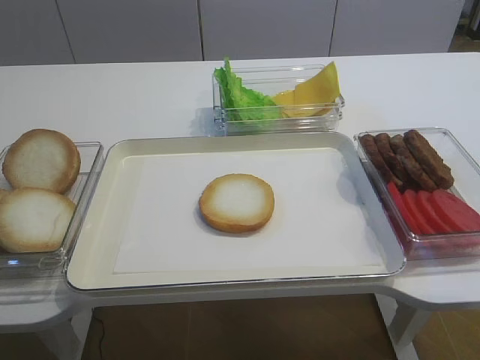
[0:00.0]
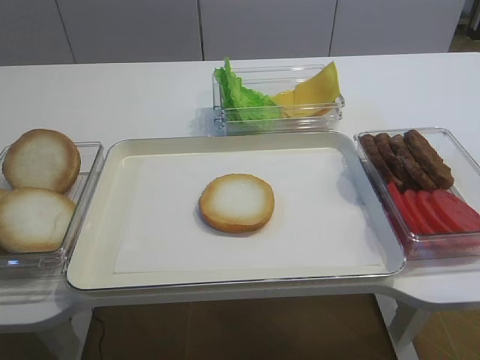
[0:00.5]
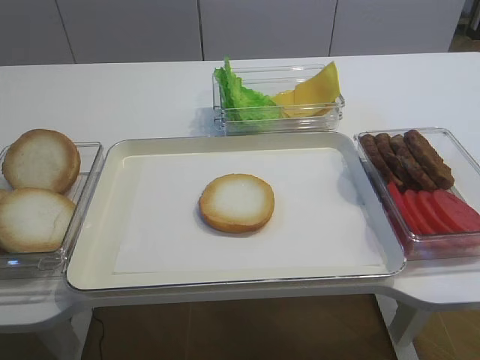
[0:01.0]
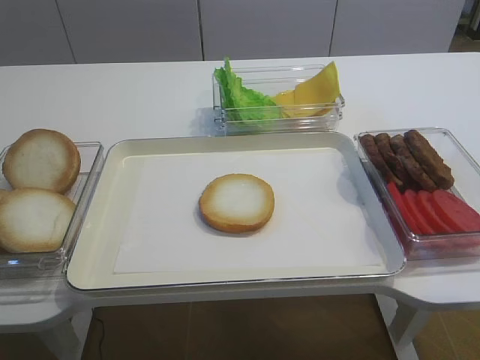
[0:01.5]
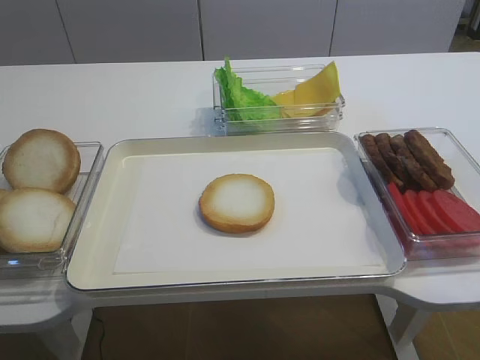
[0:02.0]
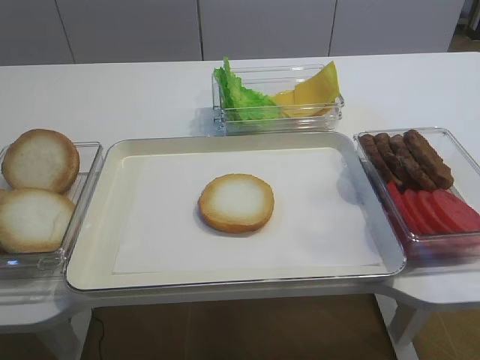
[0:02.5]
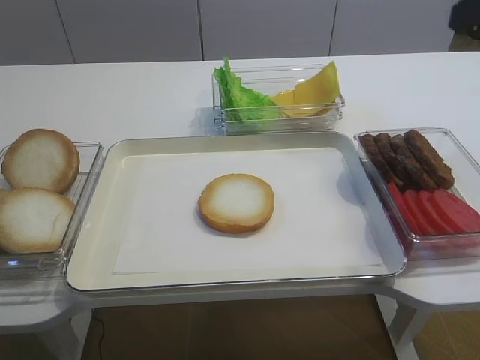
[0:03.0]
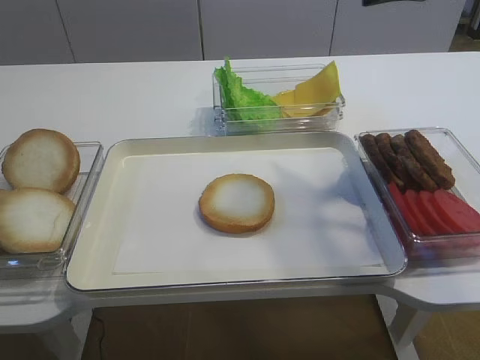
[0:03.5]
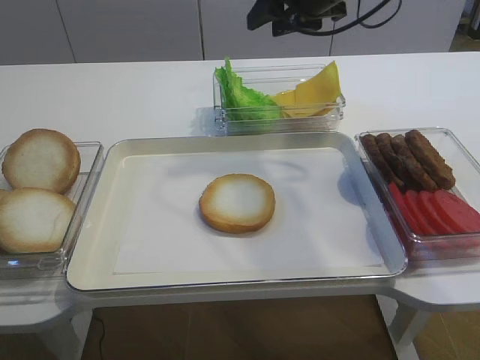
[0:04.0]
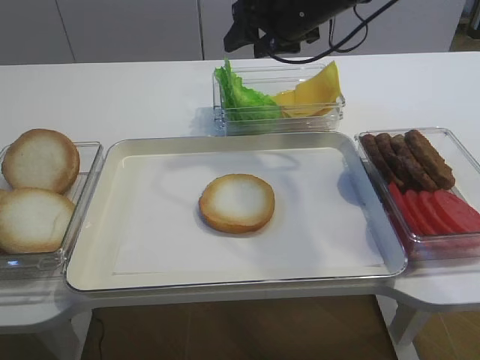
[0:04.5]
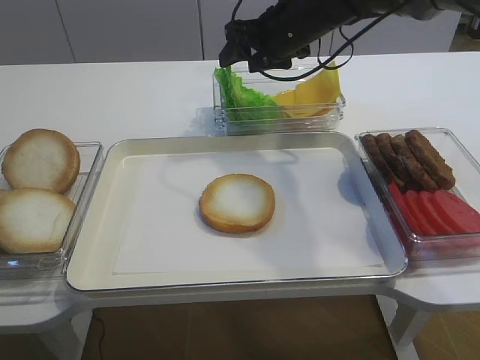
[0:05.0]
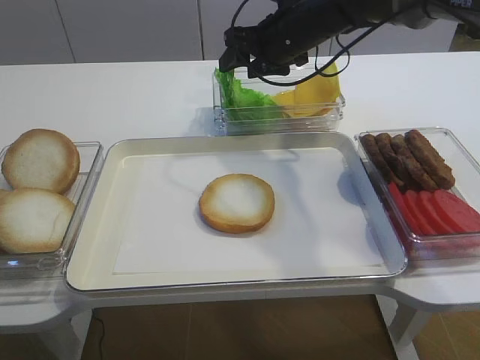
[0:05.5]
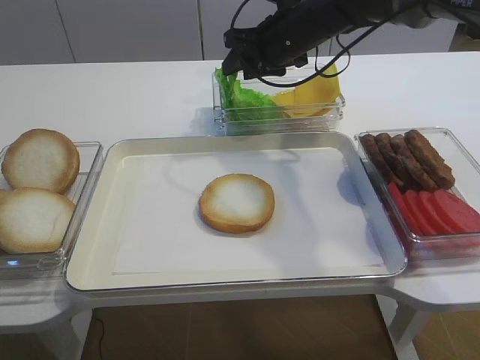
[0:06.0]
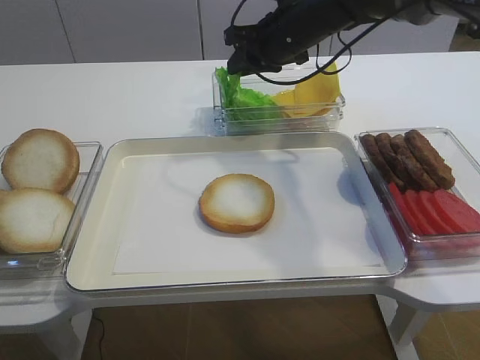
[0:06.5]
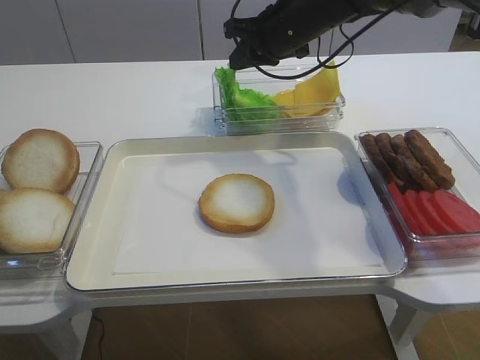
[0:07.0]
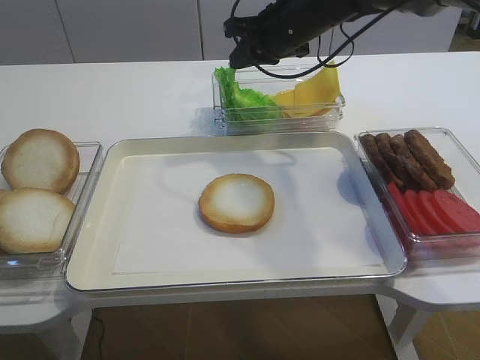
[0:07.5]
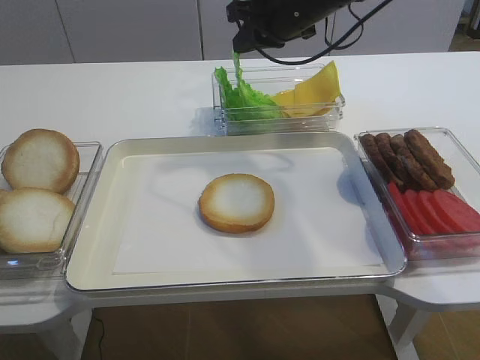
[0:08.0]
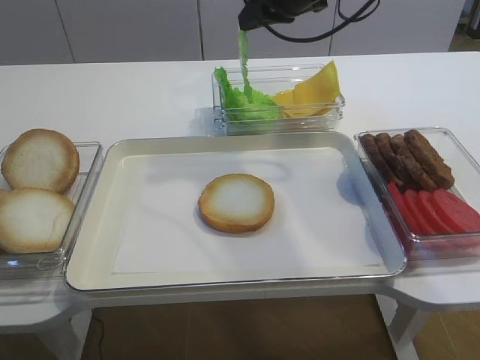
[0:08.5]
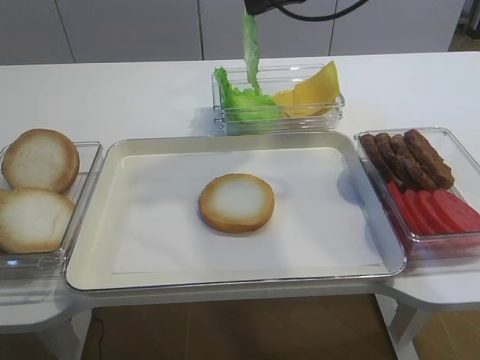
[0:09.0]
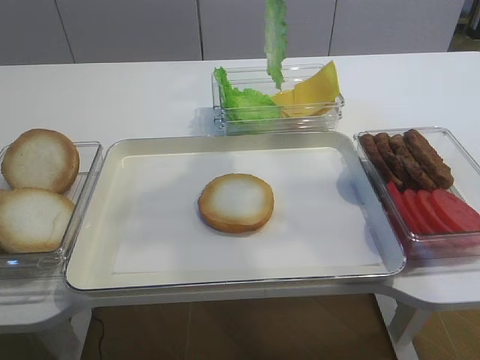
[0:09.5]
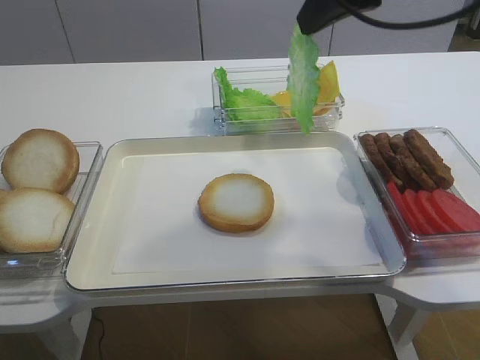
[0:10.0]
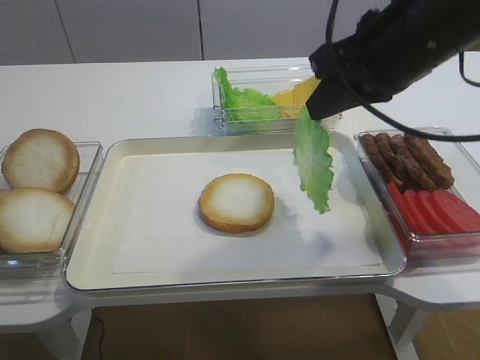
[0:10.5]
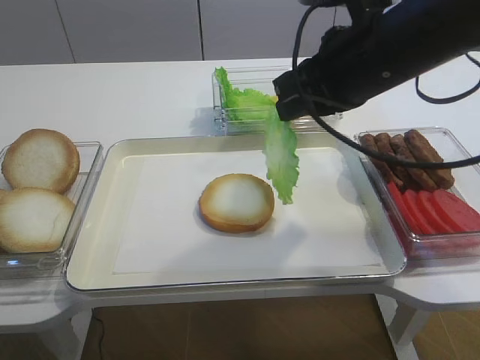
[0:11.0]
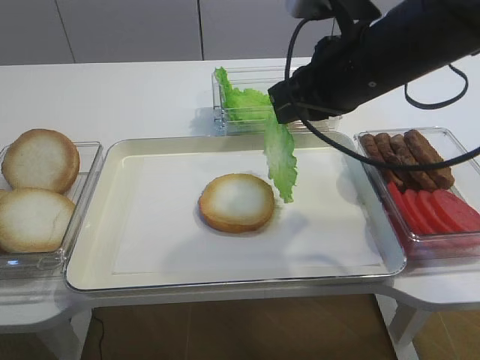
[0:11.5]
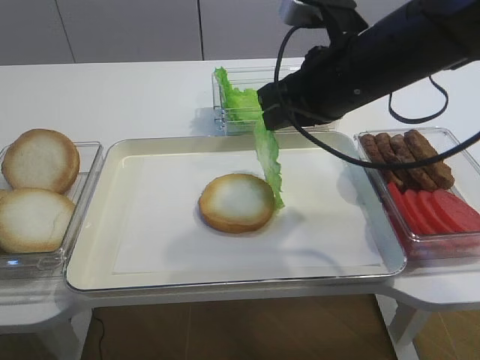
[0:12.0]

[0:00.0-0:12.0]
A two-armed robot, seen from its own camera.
Step, 0:00.0 to 0:08.0: Pick up the lettuce leaf with the right gripper.
0:02.0 to 0:04.0: The right gripper heads forward, covering some 50 cm.
0:04.0 to 0:06.0: The right gripper heads downward, covering roughly 10 cm.
0:06.0 to 0:08.0: The right gripper closes up.
0:08.0 to 0:10.0: The right gripper is displaced backward and upward by roughly 15 cm.
0:10.0 to 0:12.0: The right gripper shifts roughly 10 cm downward.

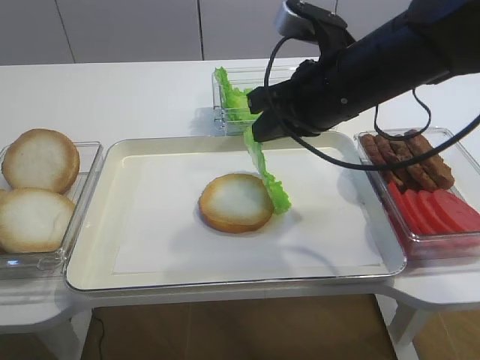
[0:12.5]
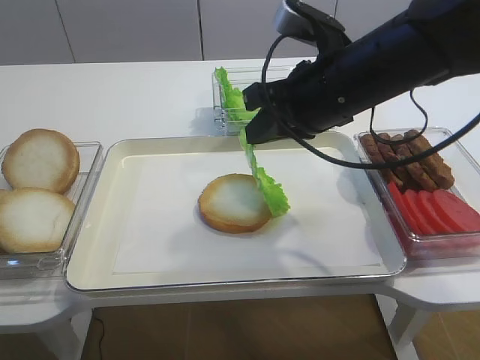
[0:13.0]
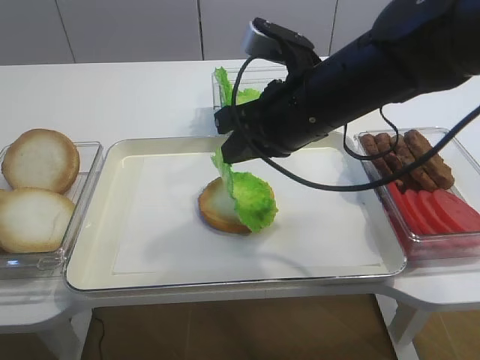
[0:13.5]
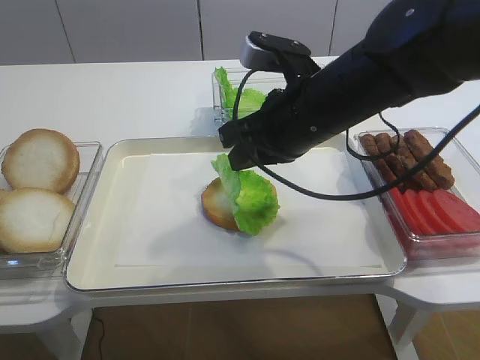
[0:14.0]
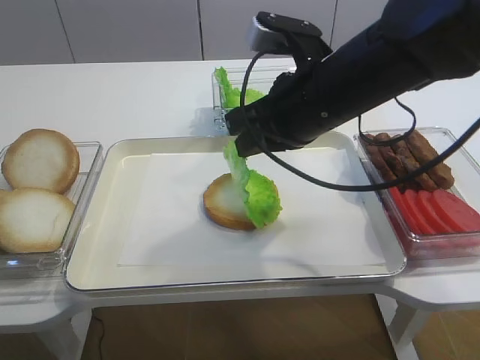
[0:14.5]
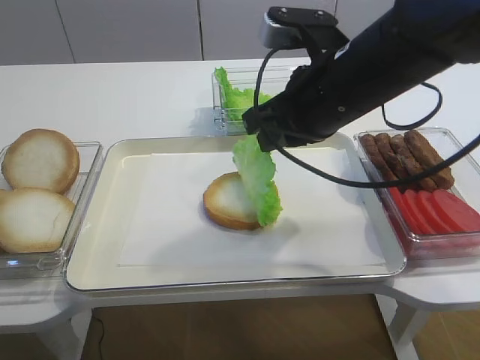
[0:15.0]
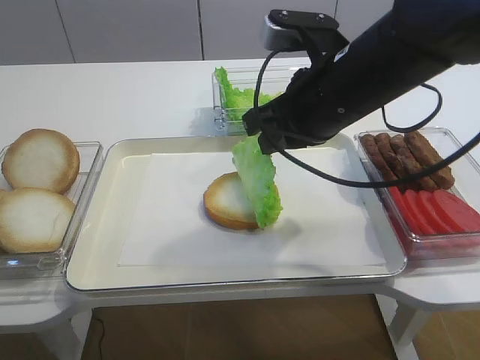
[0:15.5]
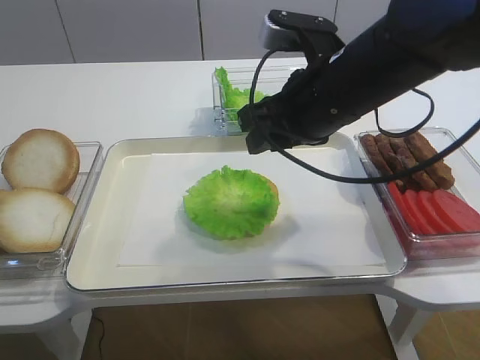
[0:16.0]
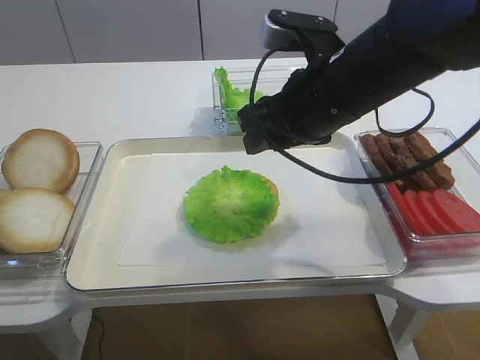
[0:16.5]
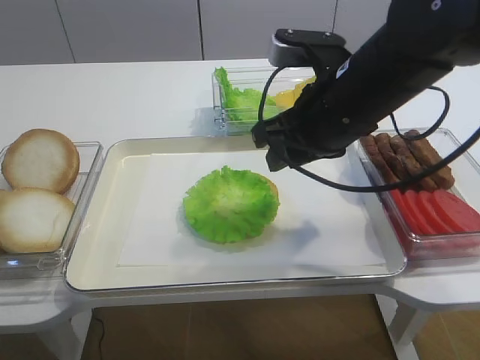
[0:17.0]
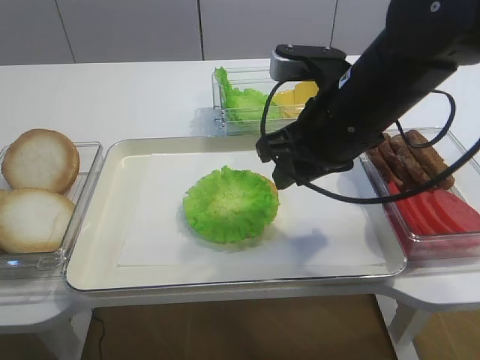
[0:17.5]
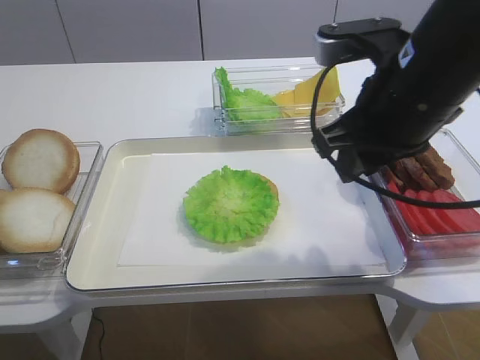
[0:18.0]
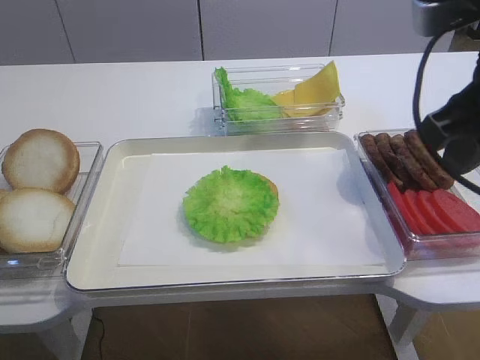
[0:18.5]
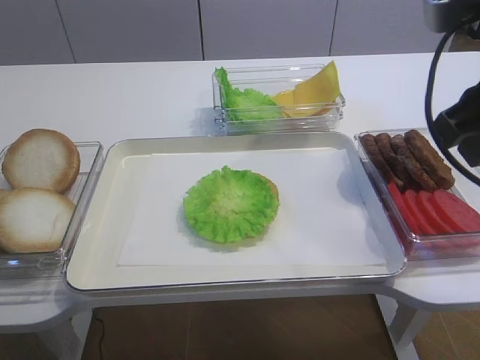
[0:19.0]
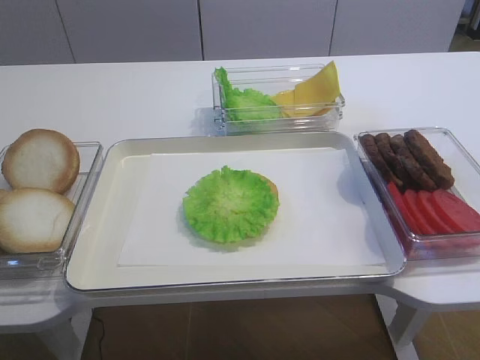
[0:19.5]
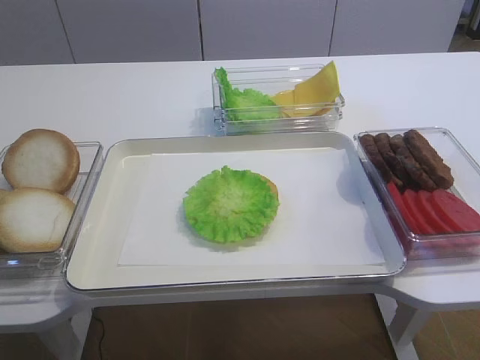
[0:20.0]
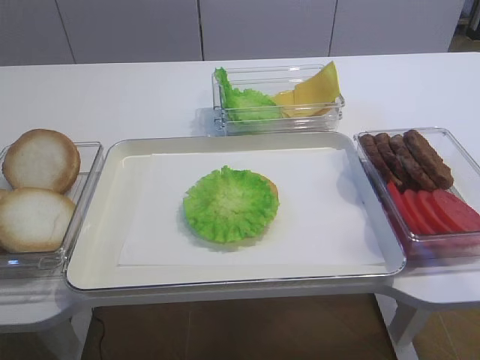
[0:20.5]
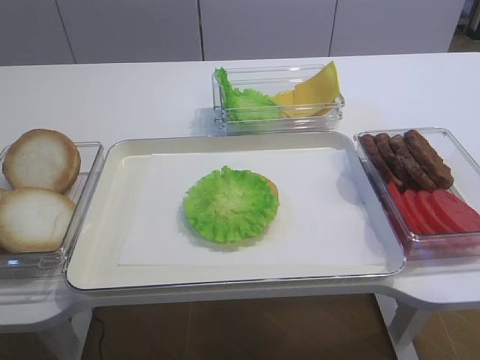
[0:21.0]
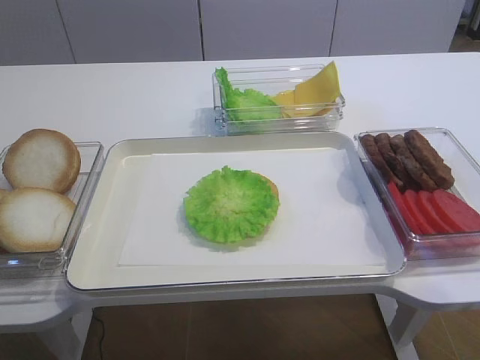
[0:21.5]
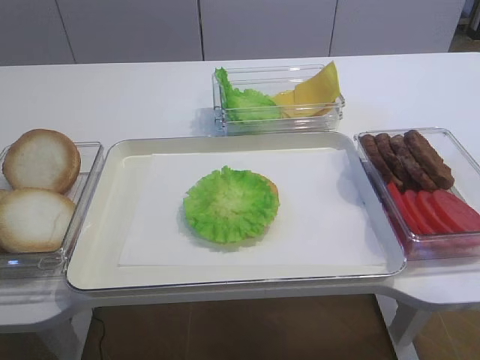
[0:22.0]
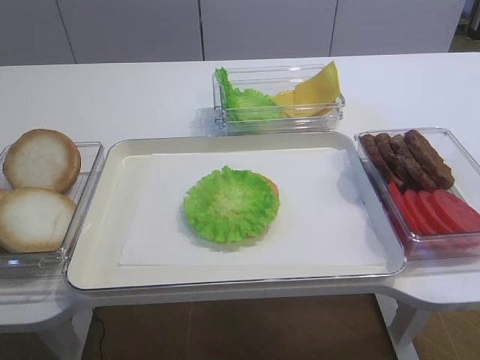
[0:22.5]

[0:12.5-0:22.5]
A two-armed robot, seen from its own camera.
Step, 0:12.5 to 0:16.0: Place the lettuce leaf on the bread slice with the right gripper.
0:12.5 to 0:14.5: The grippers move only a little.
0:14.5 to 0:16.5: The right gripper opens its fingers.
0:16.5 to 0:18.5: The right gripper heads to the right, backward and upward, covering roughly 15 cm.
0:18.5 to 0:20.5: The right gripper goes roughly 20 cm backward and to the right.
0:20.5 to 0:22.5: The right gripper goes some 10 cm downward.

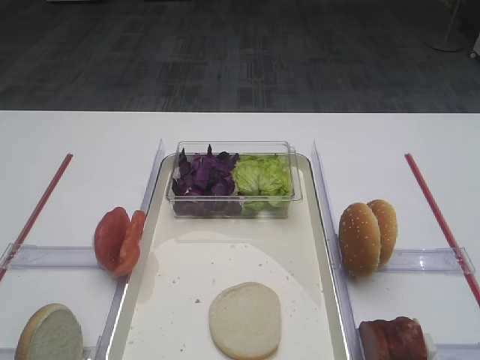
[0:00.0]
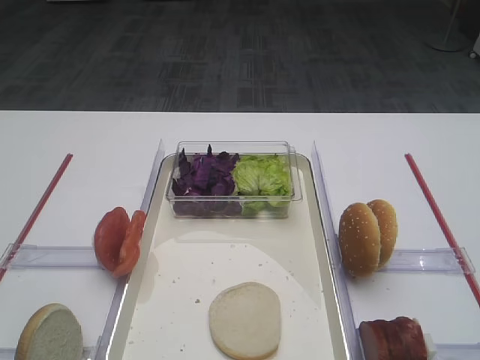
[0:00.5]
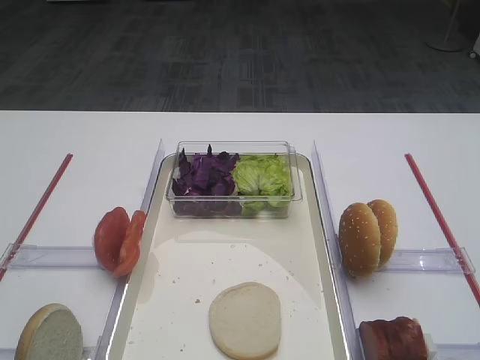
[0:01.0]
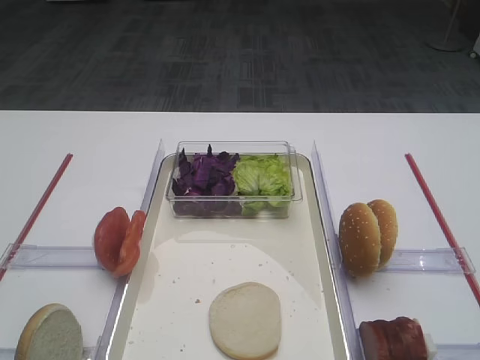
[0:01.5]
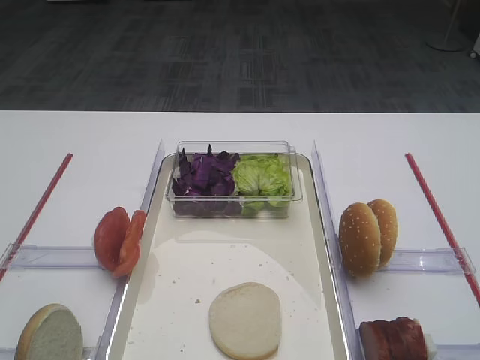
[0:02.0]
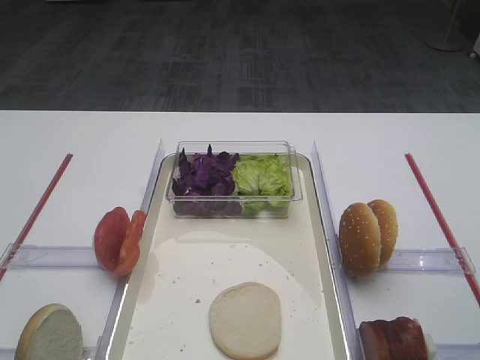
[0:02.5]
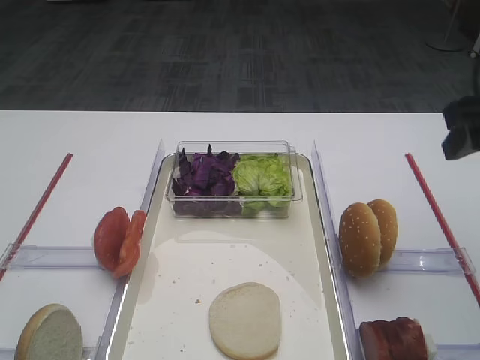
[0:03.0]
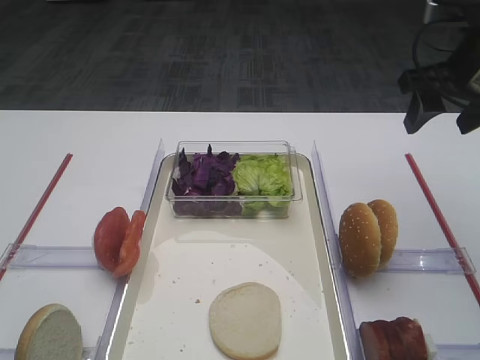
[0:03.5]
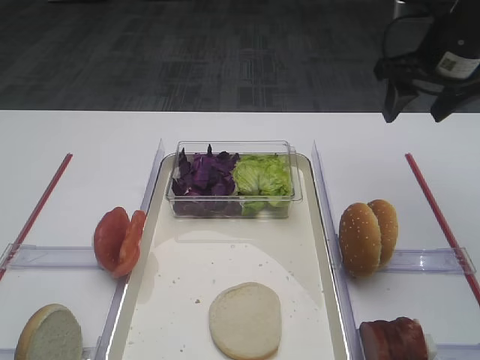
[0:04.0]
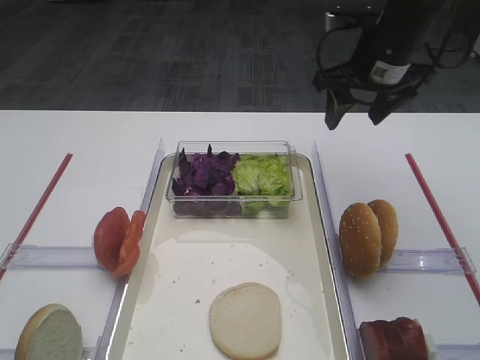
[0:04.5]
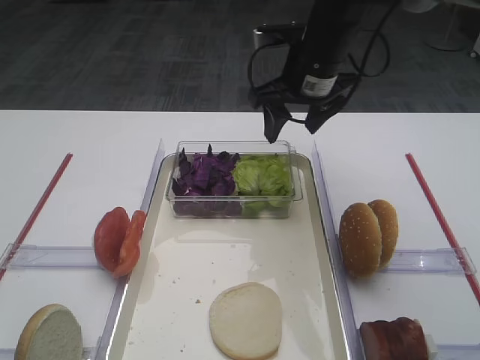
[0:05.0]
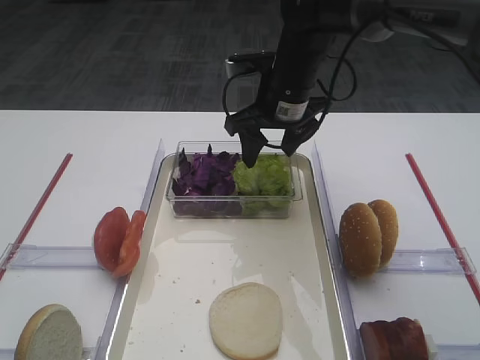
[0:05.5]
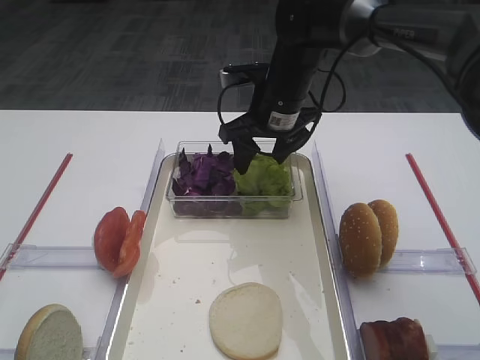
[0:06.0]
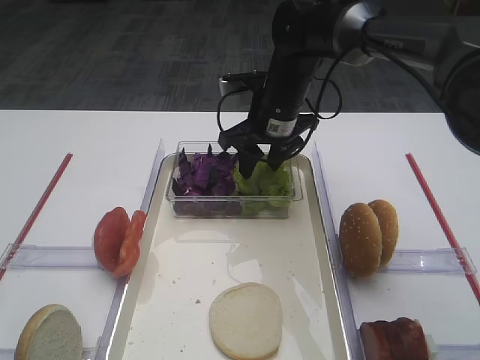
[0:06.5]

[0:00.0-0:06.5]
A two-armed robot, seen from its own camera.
0:02.0 to 0:04.5: The right gripper heads forward, covering roughly 40 cm.
0:04.5 to 0:06.5: The right gripper shifts about 15 cm to the left and downward.
